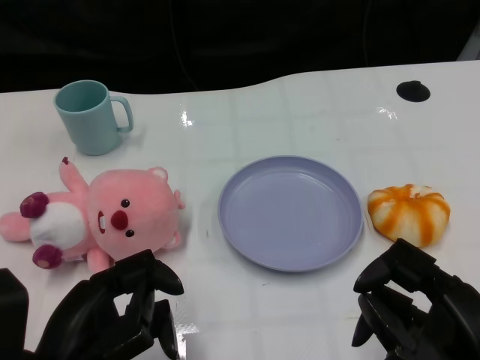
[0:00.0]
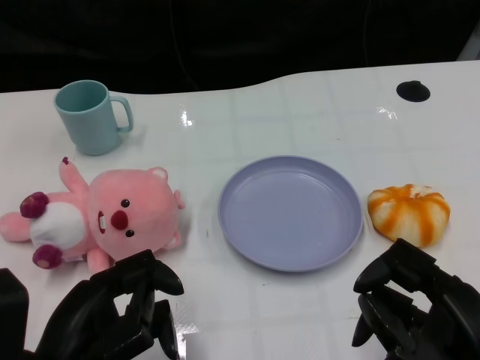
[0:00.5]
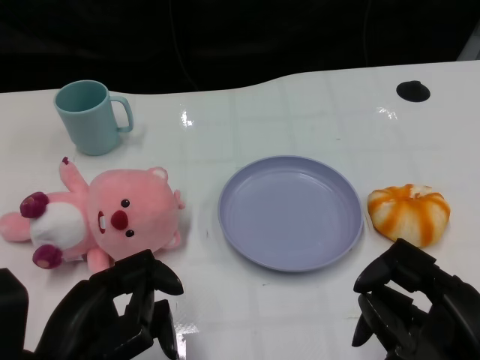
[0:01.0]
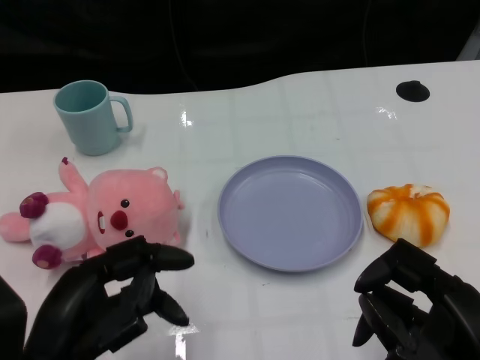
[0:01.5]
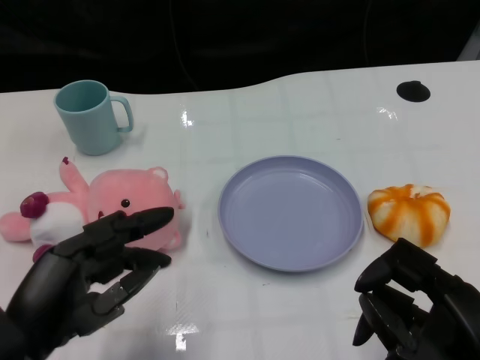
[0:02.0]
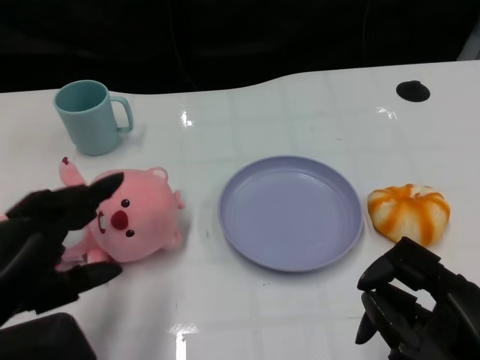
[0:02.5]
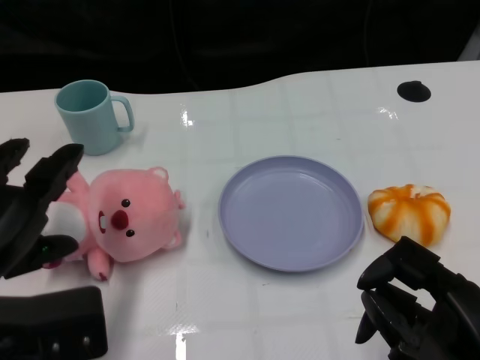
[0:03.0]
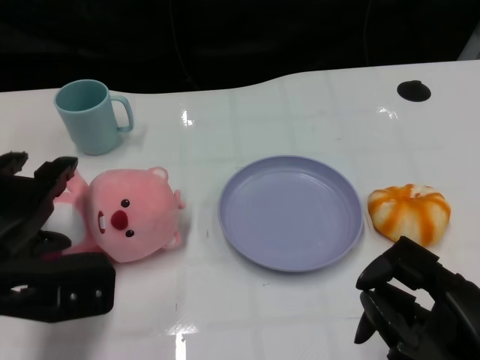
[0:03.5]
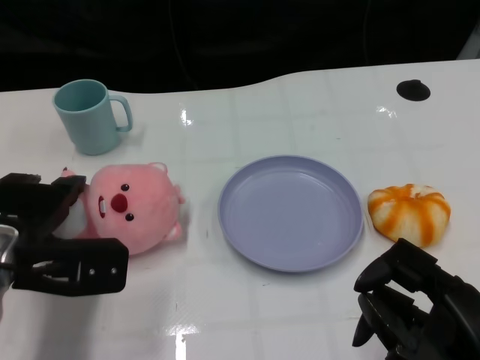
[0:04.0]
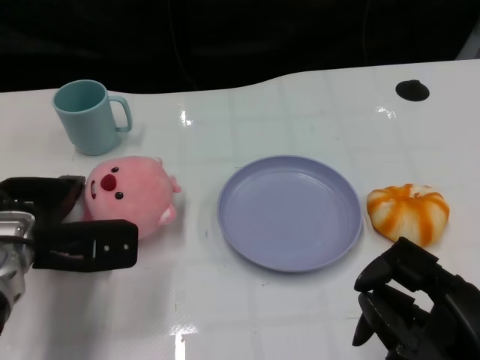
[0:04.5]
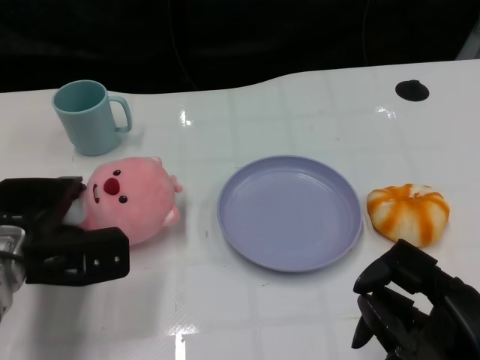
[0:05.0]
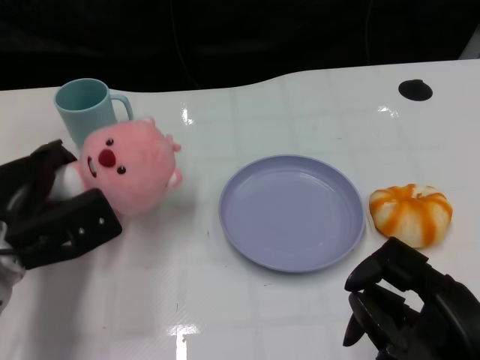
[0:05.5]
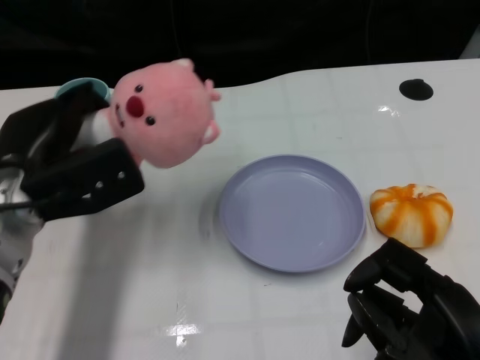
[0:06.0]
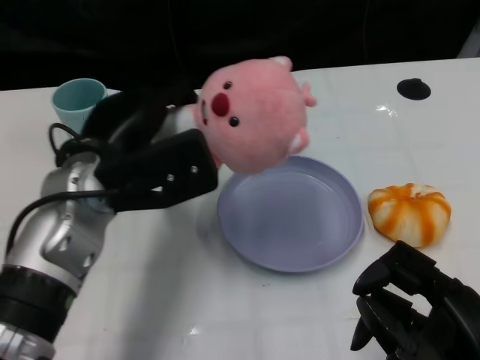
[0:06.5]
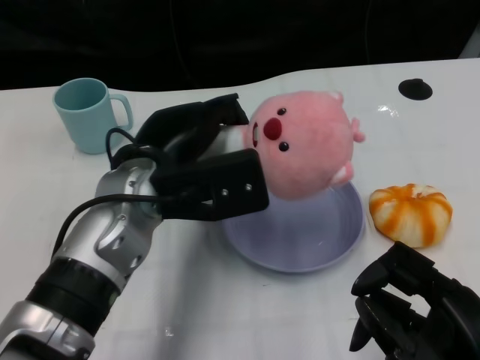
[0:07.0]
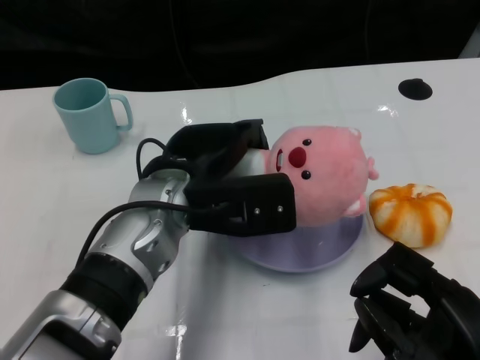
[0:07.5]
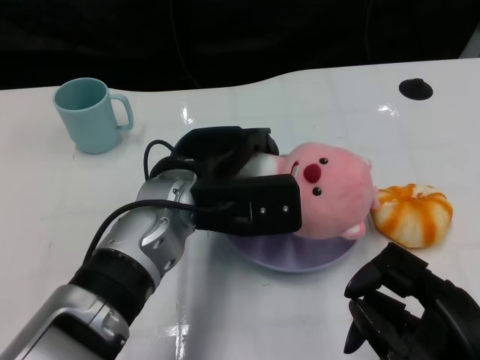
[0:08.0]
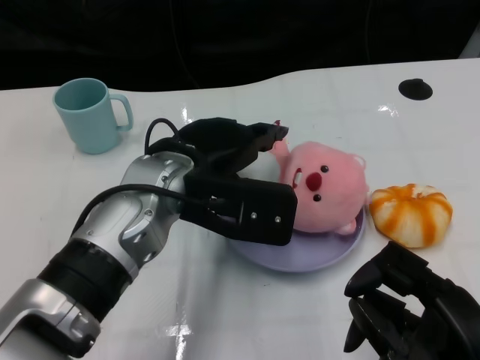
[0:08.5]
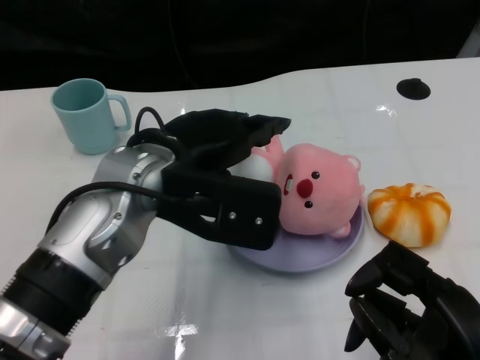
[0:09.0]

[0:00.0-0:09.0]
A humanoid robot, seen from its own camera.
Task of the whole recording: Pick up the doll on one side of the plate and place it into the plate.
Step, 0:01.5 to 0:05.5: Grasp the pink doll with the left gripper.
Step, 0:06.0 to 0:08.5: Place the pink doll into the plate with the left gripper.
0:02.0 to 0:04.5: The left hand is displaced forward by roughly 15 cm.
0:04.5 to 0:07.0: The left hand moves to the right and upward, approximately 15 cm.

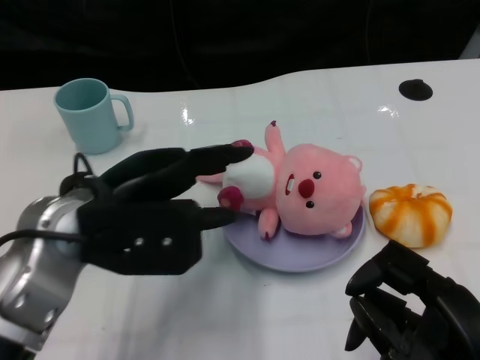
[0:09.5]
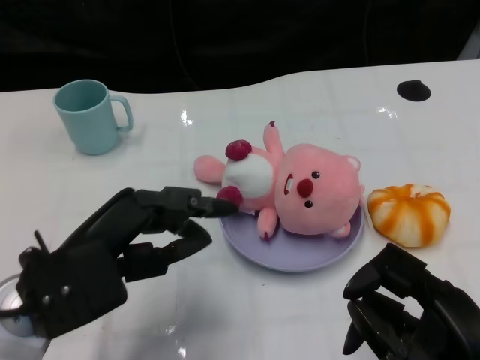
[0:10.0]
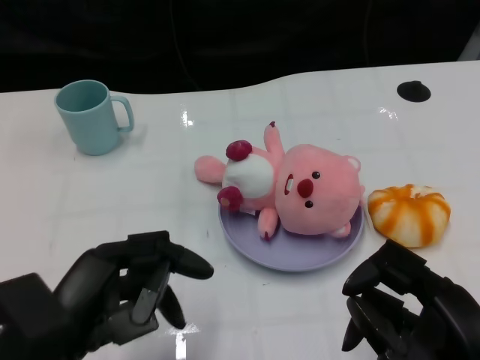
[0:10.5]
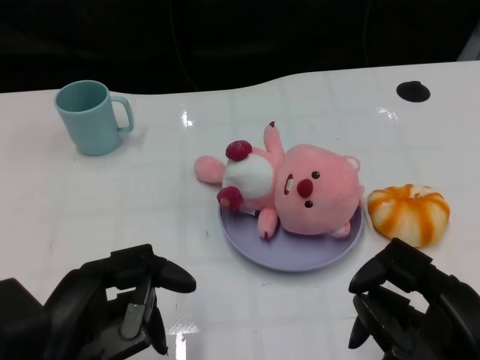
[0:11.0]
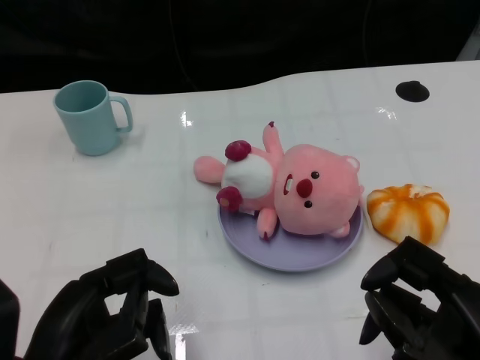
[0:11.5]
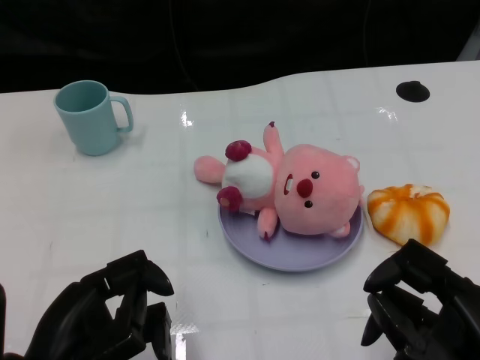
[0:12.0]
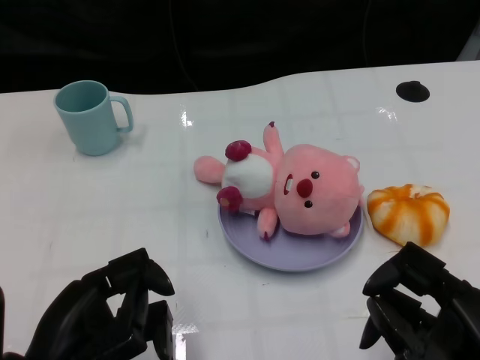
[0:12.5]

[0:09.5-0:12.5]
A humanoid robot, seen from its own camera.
Task of the whole recording: Pick up the doll on one side of the plate and place it into the plate.
0:09.5 to 0:11.0: The left hand moves backward and downward, some 15 cm.

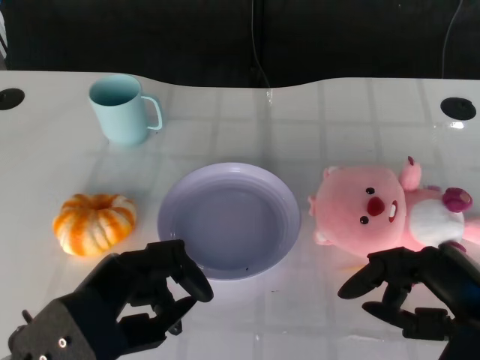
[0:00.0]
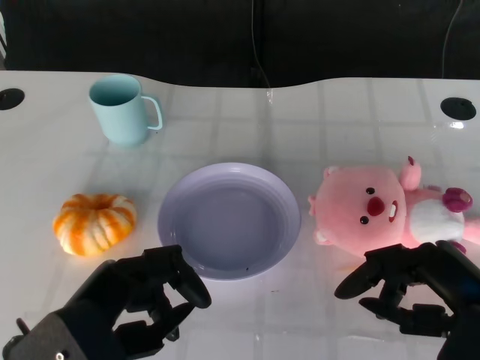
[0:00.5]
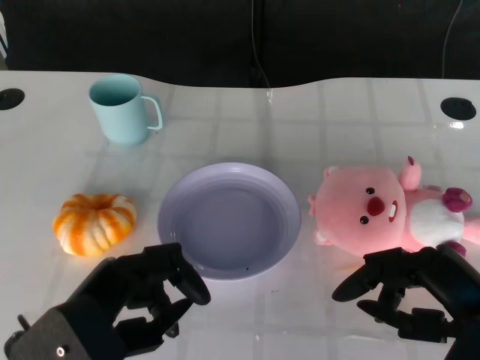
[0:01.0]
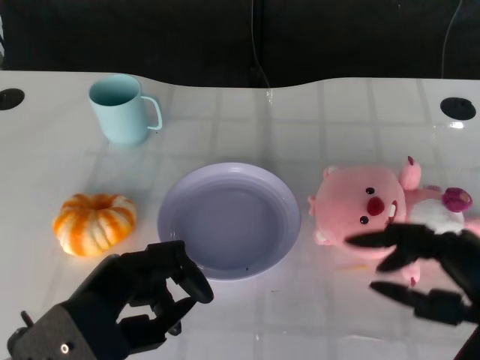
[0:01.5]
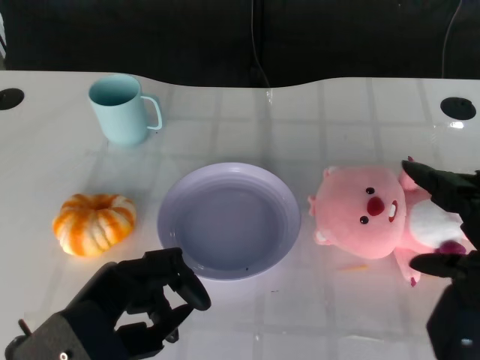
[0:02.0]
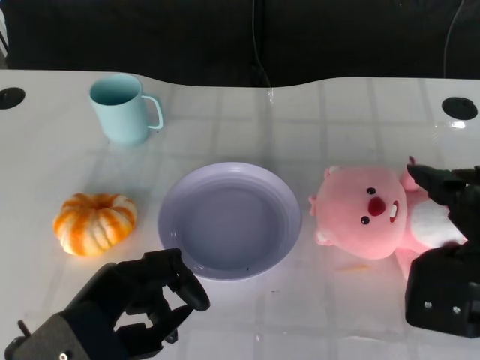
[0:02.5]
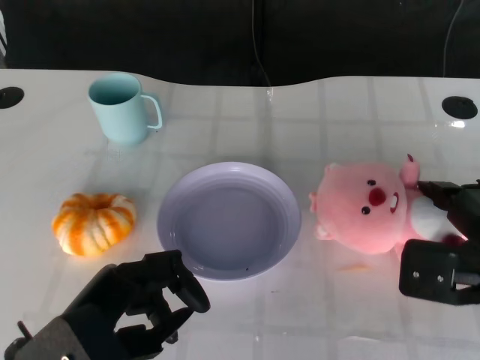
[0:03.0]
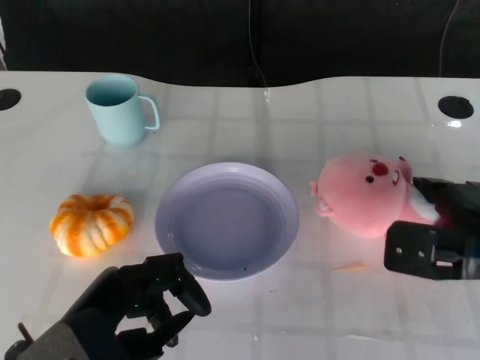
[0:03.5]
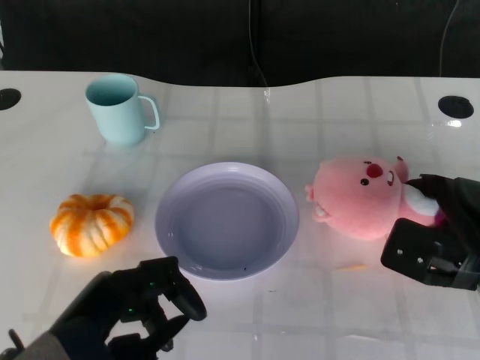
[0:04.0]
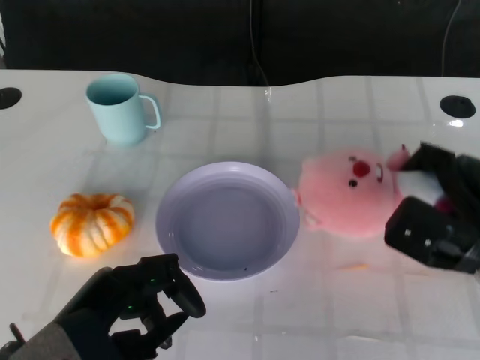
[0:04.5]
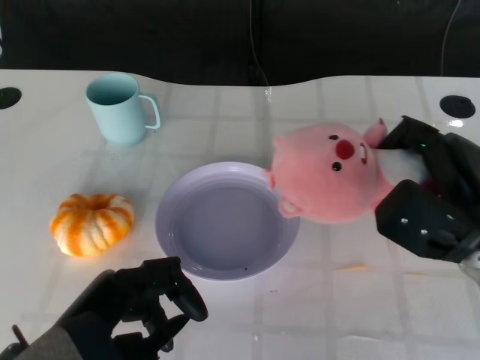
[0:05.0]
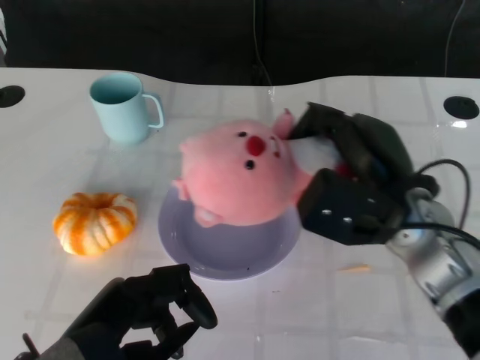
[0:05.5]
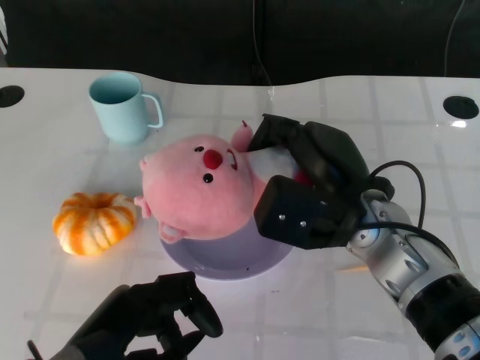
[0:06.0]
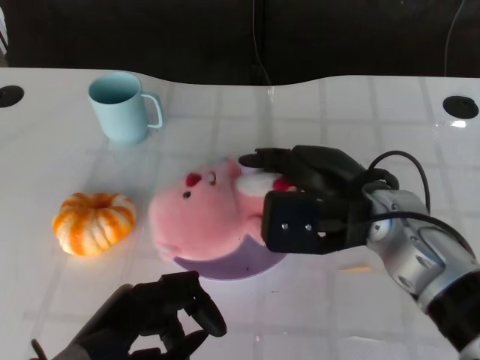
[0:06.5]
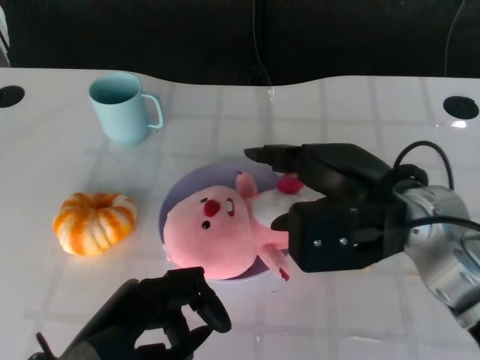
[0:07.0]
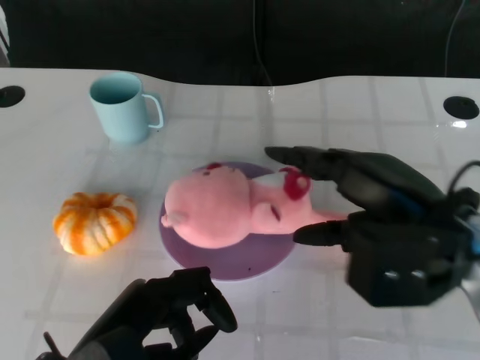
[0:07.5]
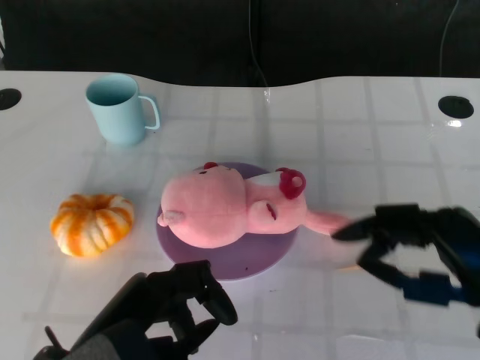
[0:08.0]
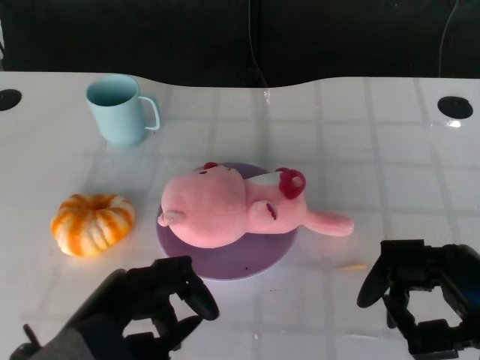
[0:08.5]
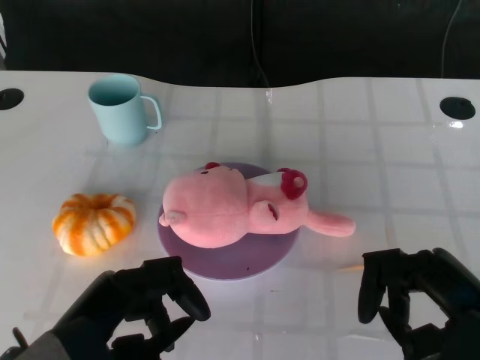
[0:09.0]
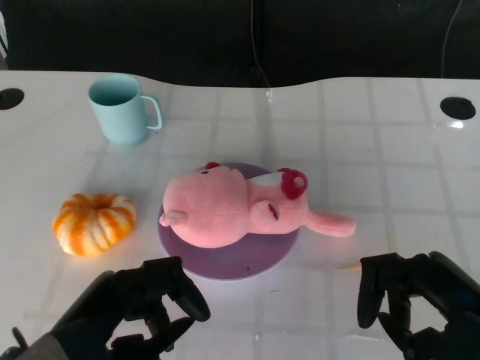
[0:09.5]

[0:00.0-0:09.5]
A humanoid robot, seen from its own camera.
Task of the whole recording: Pick up the doll on the other side of the plate and place it into the plate.
Step, 0:01.5 to 0:04.5: Grasp the pink doll with the right gripper.
Step, 0:05.0 to 0:07.5: Place the pink doll into the plate with the right gripper.
0:02.0 to 0:04.0: The right hand is displaced forward and downward by about 15 cm.
0:04.0 to 0:05.5: The right hand shifts about 10 cm to the left and upward.
0:05.5 to 0:07.5: The right hand shifts approximately 5 cm backward.
0:07.5 to 0:09.5: The right hand heads backward, downward and to the right, covering about 10 cm.
